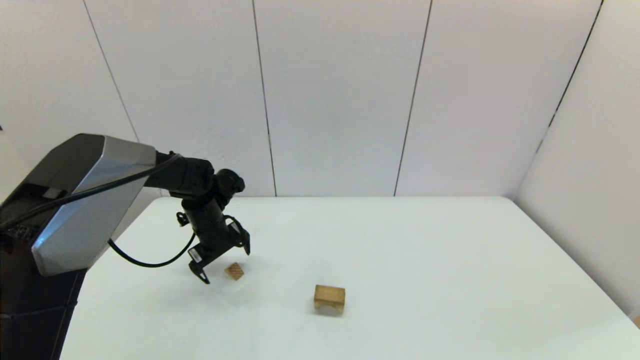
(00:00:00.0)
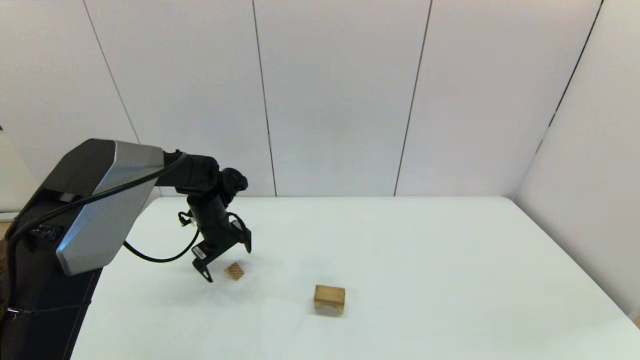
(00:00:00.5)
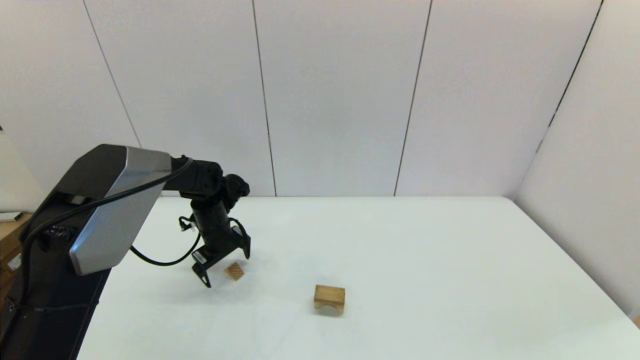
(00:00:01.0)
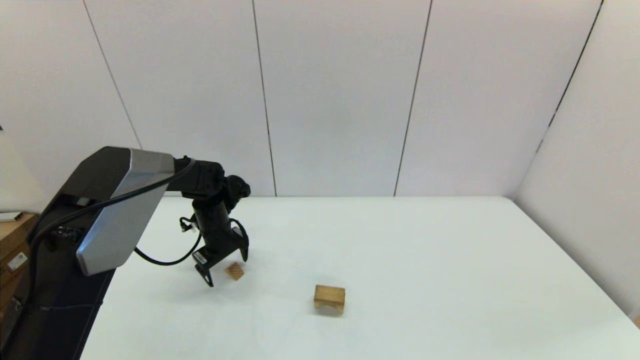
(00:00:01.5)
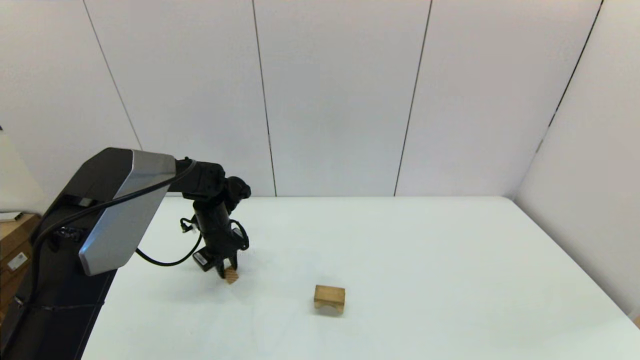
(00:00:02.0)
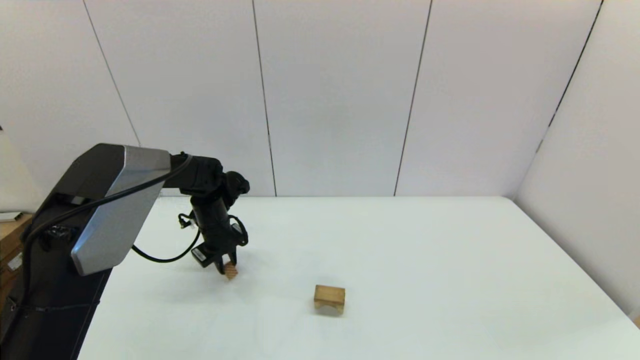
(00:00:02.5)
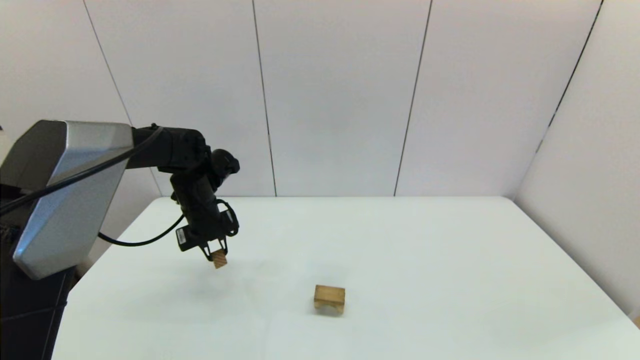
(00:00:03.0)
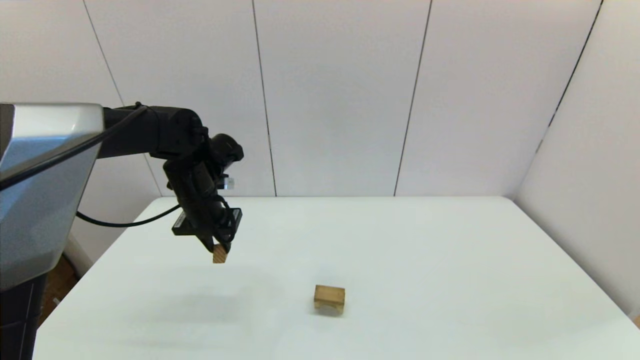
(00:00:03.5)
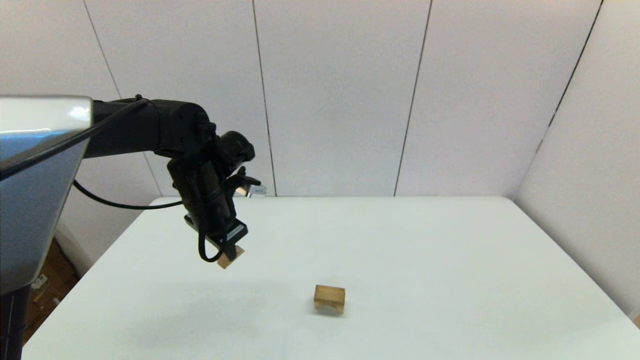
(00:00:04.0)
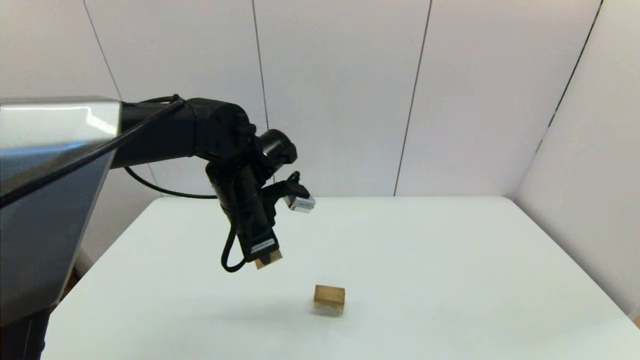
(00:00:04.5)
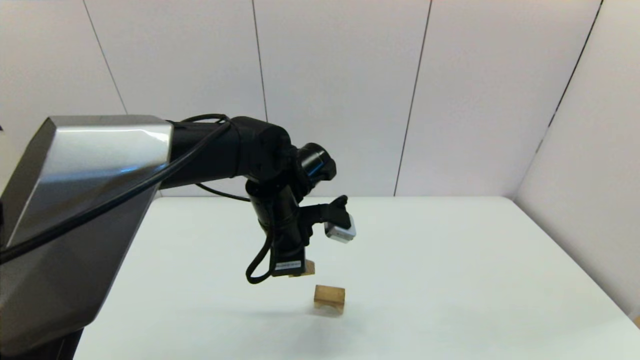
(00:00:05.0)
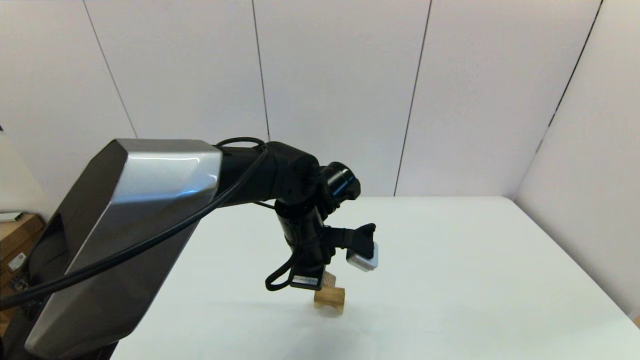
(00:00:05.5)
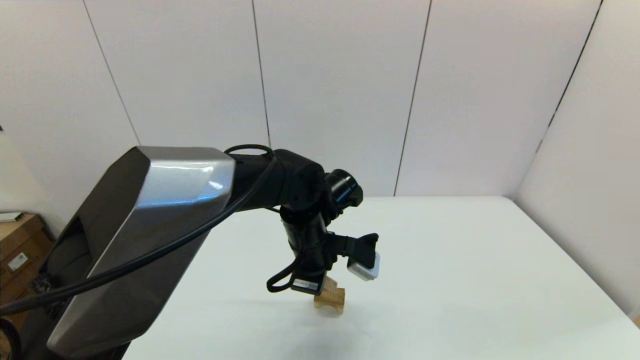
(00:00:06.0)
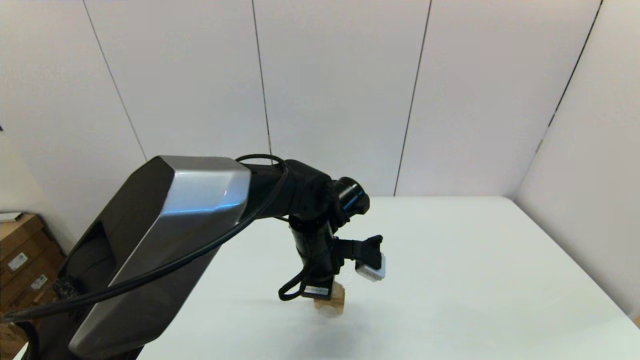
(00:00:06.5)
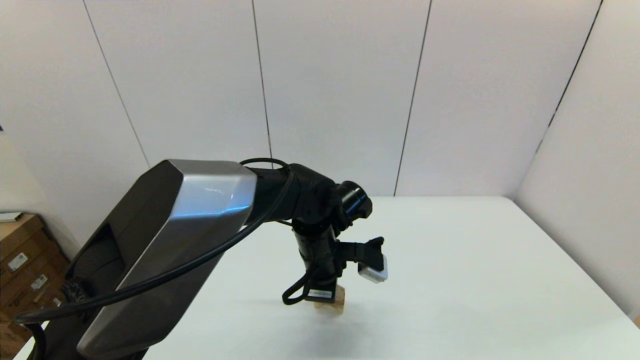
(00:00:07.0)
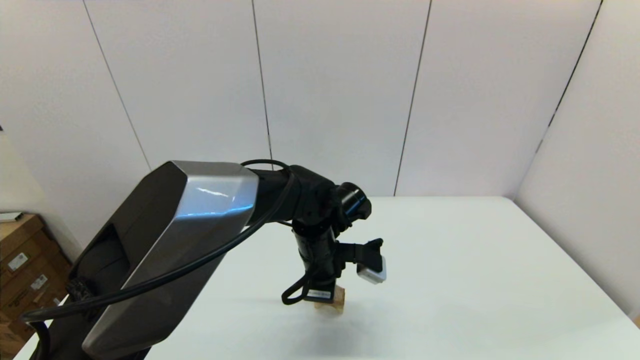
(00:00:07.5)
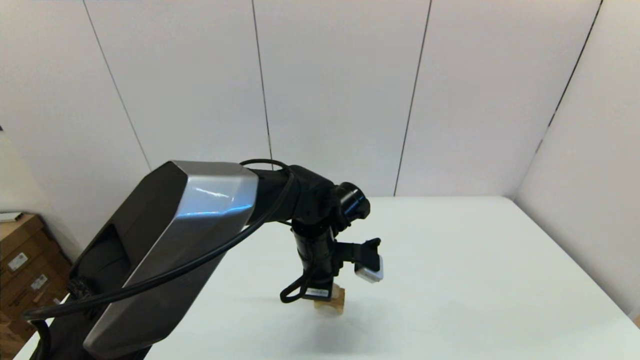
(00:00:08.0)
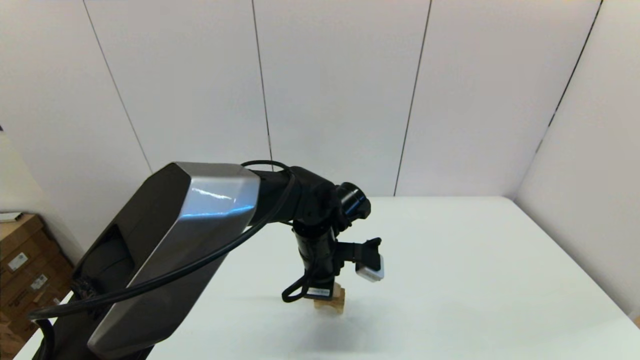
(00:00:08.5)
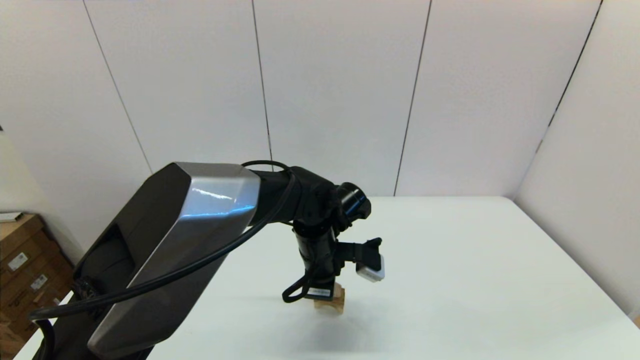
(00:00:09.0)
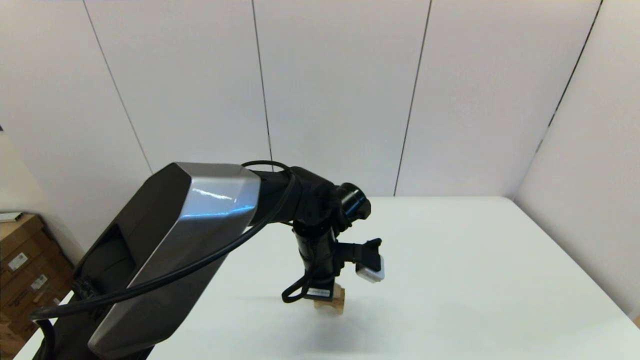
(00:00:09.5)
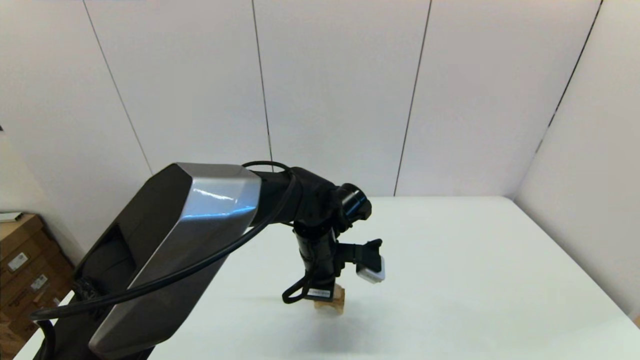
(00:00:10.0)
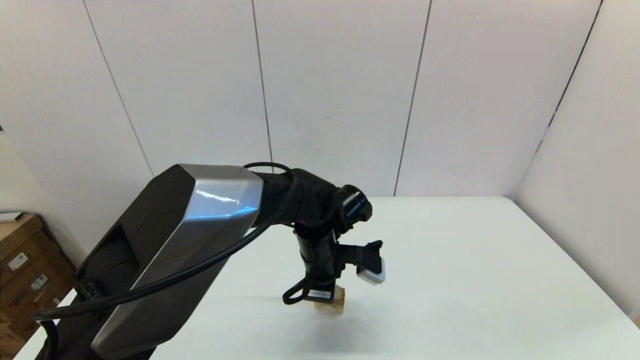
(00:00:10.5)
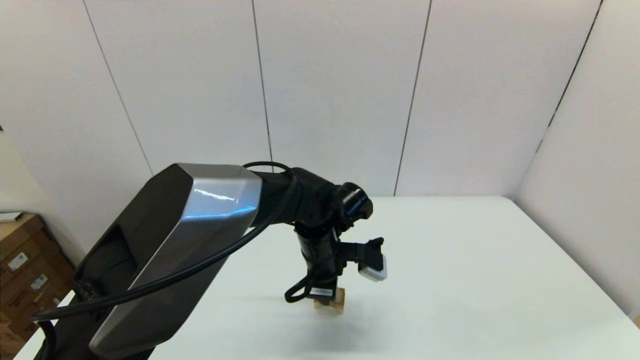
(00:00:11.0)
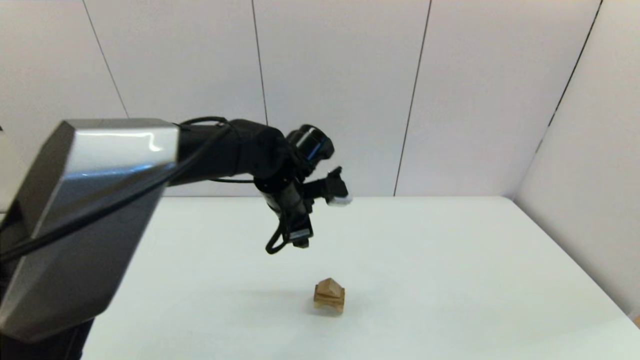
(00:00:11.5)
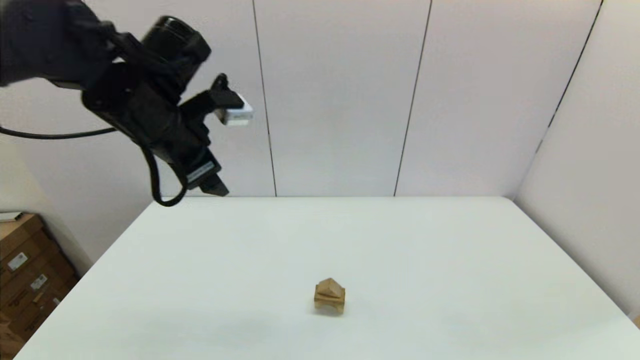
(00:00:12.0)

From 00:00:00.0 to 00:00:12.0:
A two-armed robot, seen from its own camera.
Task of the whole recording: place the arched building blocks in the center of the table, set up the rectangular building blocks, and then set up the triangular building blocks.
Step, from 00:00:00.0 to 00:00:02.0: Grasp the triangle-shaped block with the left gripper.
From 00:00:00.0 to 00:00:02.0: The left gripper closes its fingers.
From 00:00:02.0 to 00:00:04.0: The left gripper heads upward and backward, covering roughly 15 cm.
From 00:00:04.0 to 00:00:06.0: The left gripper moves to the right, some 15 cm.
From 00:00:06.0 to 00:00:08.0: The grippers stay close to where they were, moving slightly.
From 00:00:08.0 to 00:00:10.0: Neither gripper changes place.
From 00:00:10.0 to 00:00:12.0: The left gripper travels upward and to the left by roughly 30 cm, and opens its fingers.

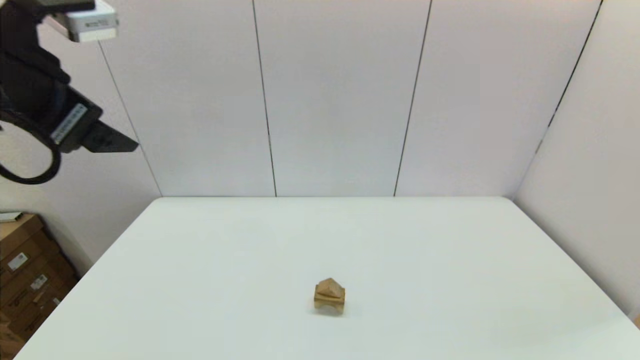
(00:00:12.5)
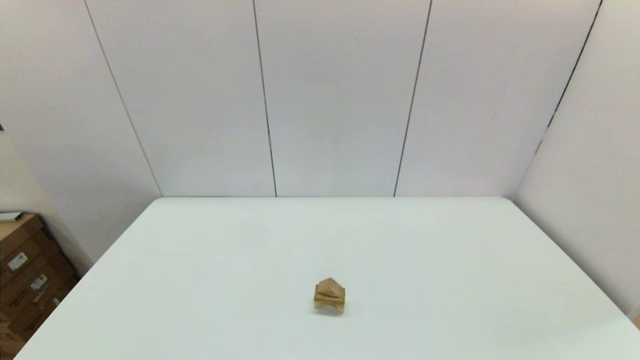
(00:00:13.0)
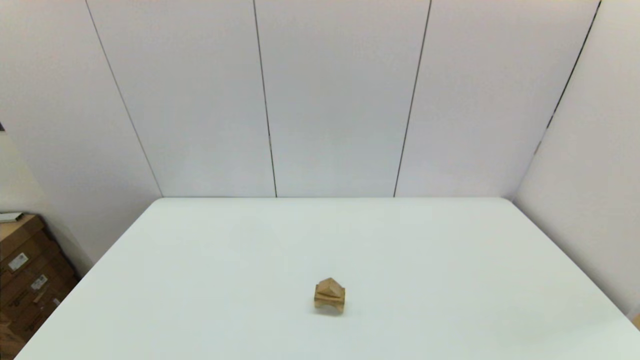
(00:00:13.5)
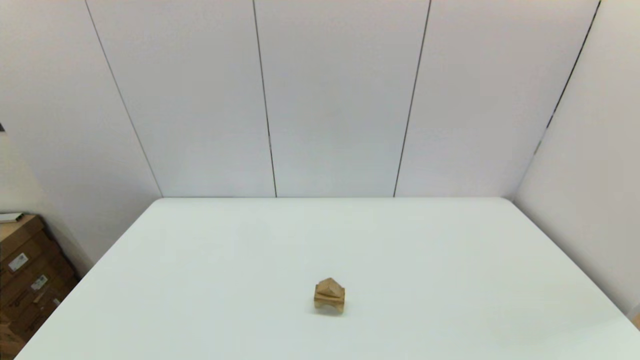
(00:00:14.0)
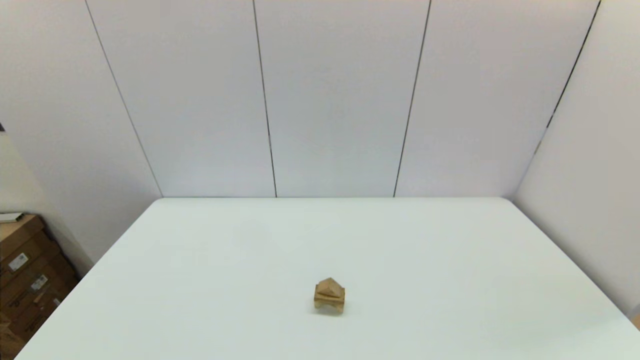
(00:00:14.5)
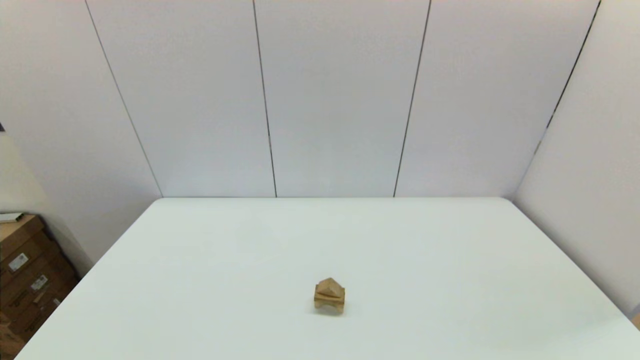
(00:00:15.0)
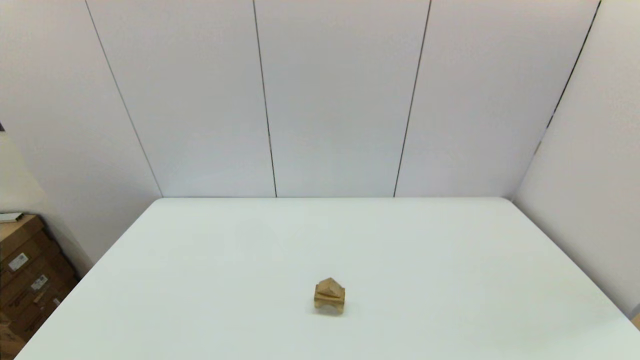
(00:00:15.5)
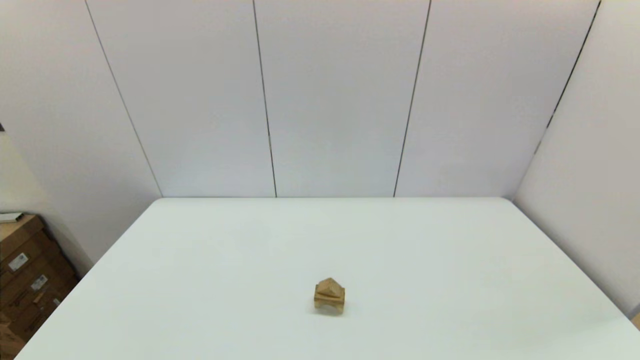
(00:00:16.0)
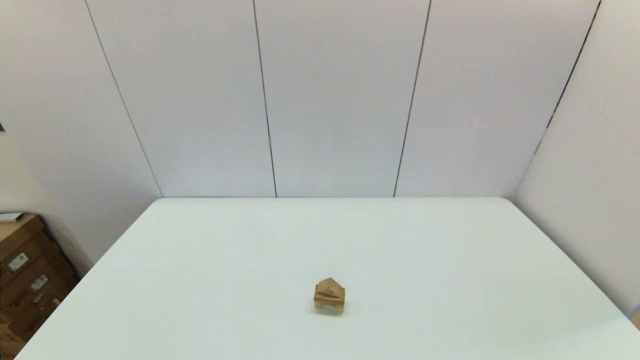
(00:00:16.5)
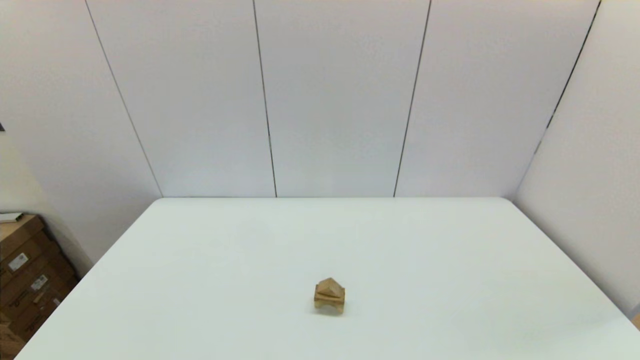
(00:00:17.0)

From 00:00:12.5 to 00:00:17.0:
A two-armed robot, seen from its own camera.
Task of the whole recording: place the arched building blocks in the center of the table, set up the rectangular building blocks, and then set up the triangular building blocks.
From 00:00:12.5 to 00:00:14.5: The left gripper is displaced backward and downward by roughly 35 cm.
